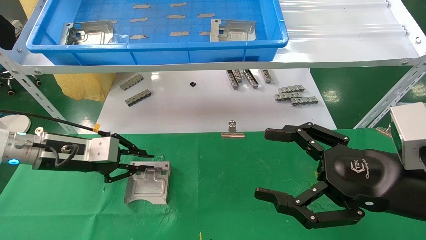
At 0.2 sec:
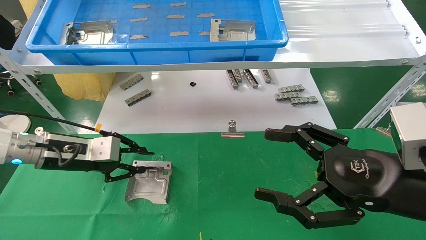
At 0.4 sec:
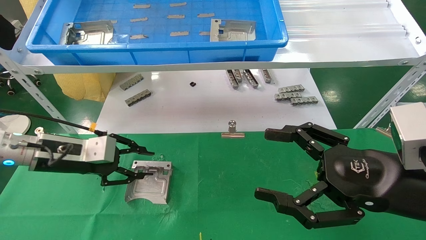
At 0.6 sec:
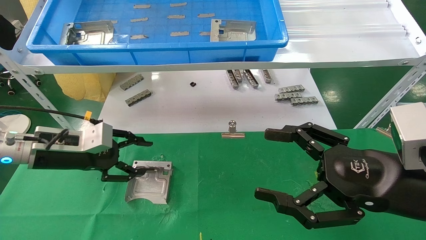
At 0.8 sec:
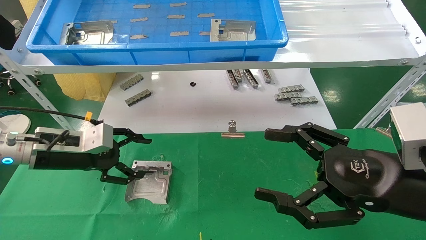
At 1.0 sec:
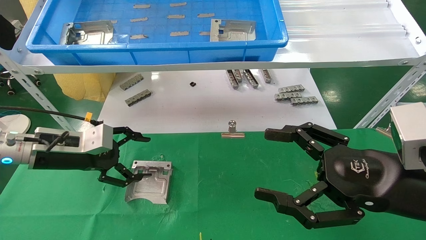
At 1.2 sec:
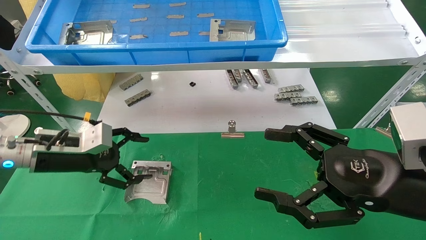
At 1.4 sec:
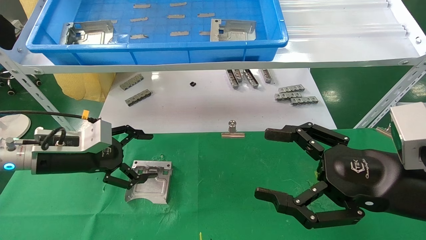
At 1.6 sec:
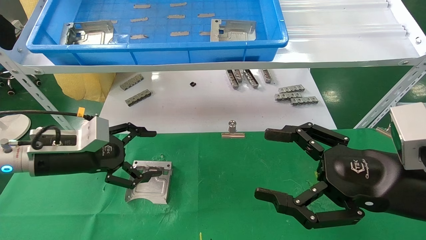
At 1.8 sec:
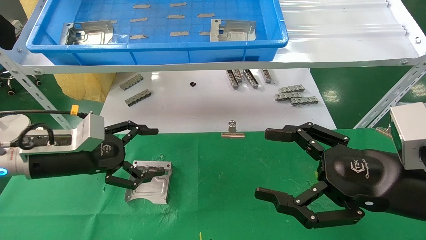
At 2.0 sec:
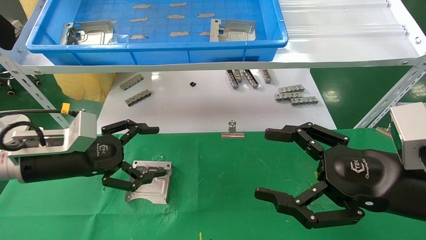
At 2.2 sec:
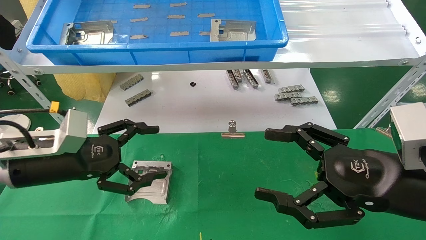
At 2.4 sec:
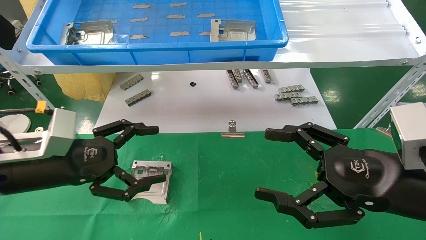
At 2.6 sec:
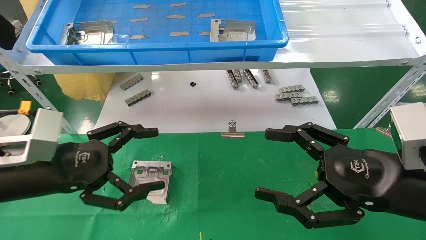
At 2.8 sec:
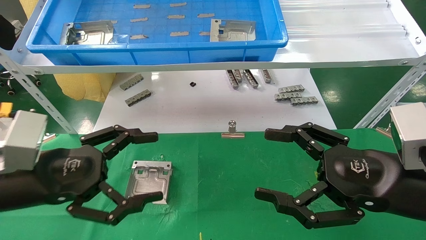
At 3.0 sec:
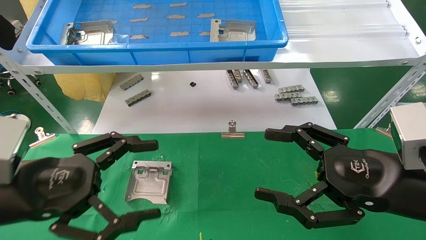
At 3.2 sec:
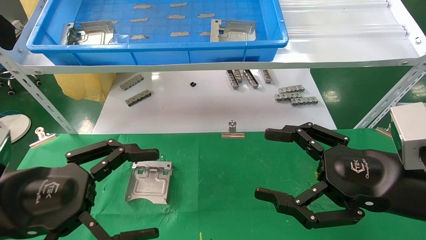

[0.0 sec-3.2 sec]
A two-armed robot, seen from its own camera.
Task of the whole recording: use the mechanical arm to pick up the parts and place them on the table.
0.0 sec to 1.6 sec: The left gripper opens.
1.6 sec to 3.2 sec: The left gripper moves backward, roughly 15 cm.
